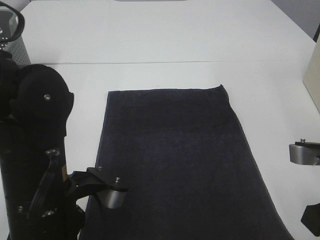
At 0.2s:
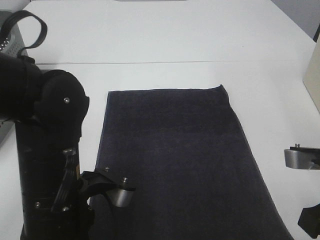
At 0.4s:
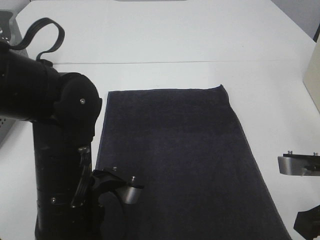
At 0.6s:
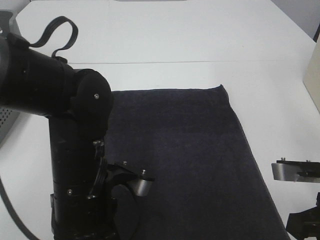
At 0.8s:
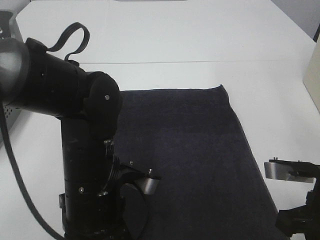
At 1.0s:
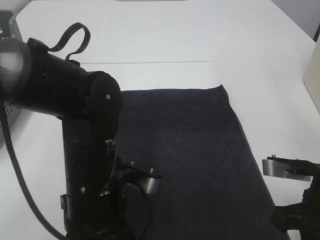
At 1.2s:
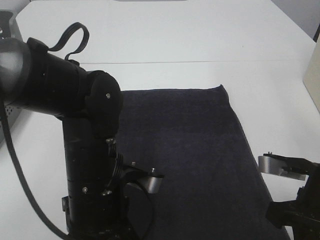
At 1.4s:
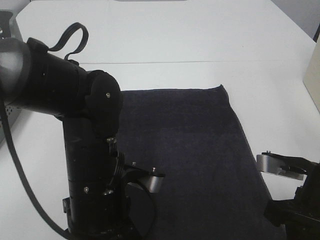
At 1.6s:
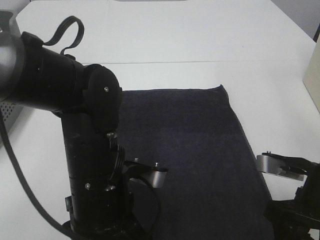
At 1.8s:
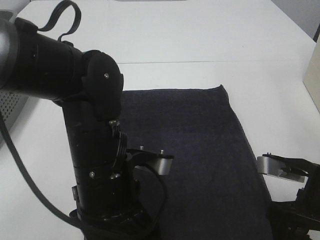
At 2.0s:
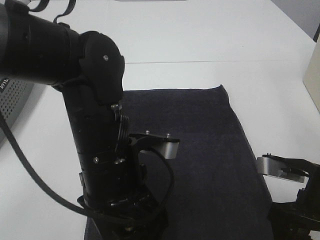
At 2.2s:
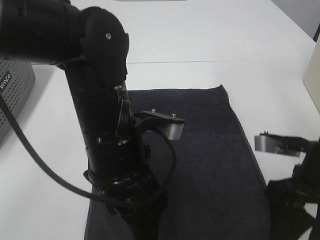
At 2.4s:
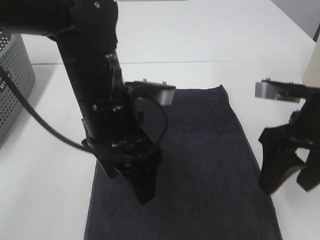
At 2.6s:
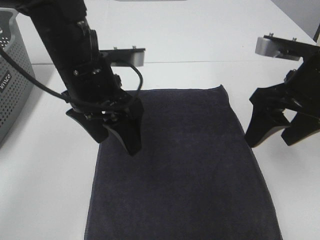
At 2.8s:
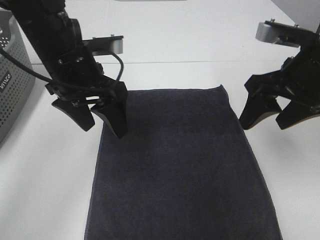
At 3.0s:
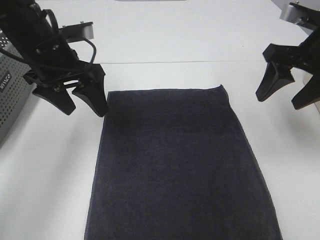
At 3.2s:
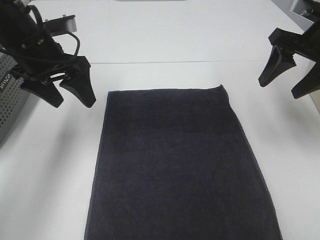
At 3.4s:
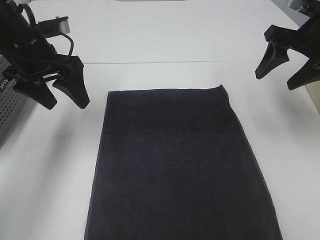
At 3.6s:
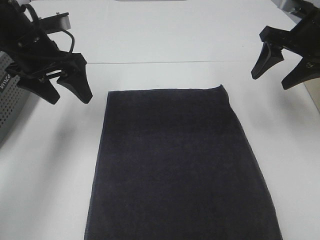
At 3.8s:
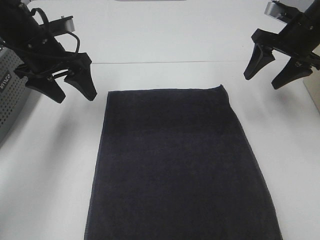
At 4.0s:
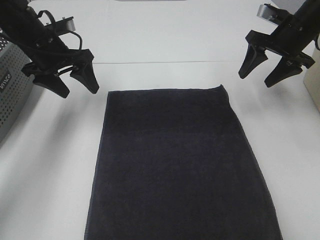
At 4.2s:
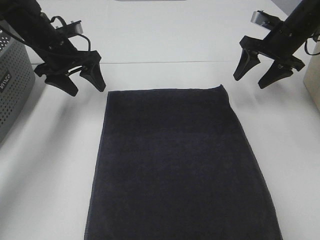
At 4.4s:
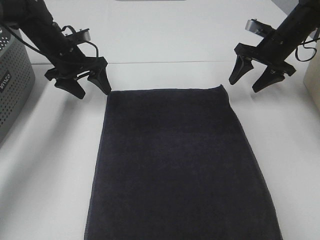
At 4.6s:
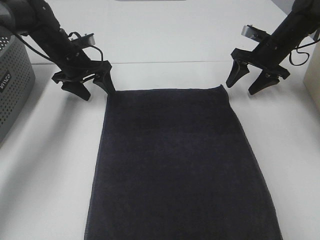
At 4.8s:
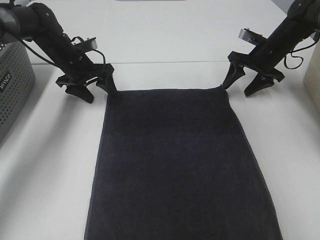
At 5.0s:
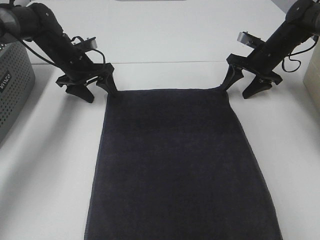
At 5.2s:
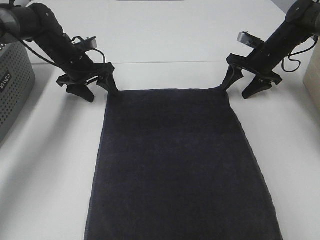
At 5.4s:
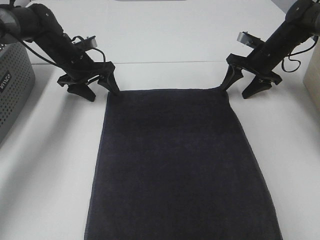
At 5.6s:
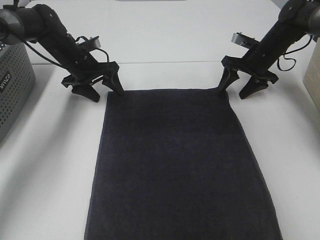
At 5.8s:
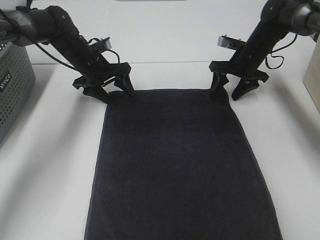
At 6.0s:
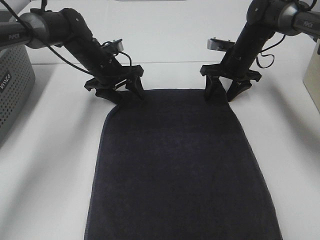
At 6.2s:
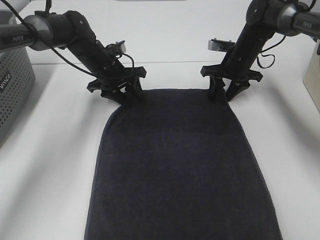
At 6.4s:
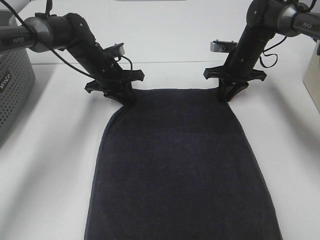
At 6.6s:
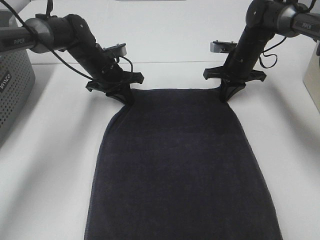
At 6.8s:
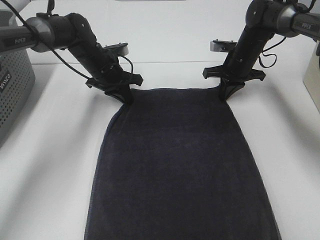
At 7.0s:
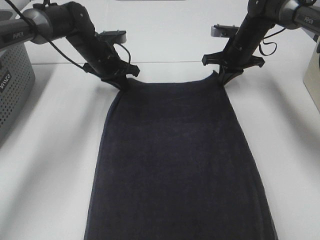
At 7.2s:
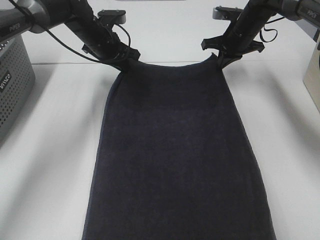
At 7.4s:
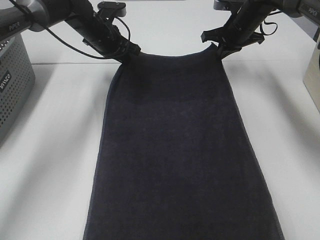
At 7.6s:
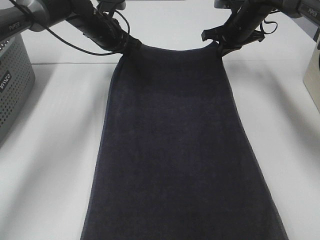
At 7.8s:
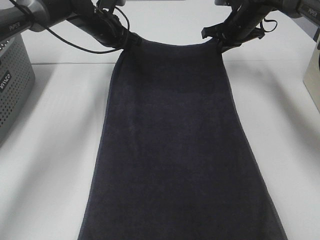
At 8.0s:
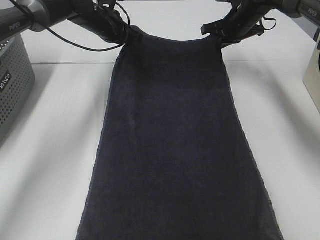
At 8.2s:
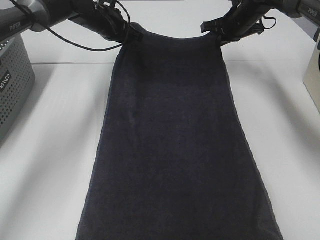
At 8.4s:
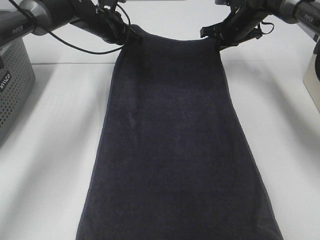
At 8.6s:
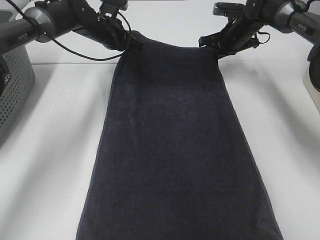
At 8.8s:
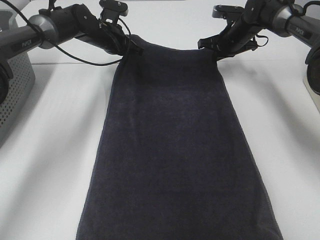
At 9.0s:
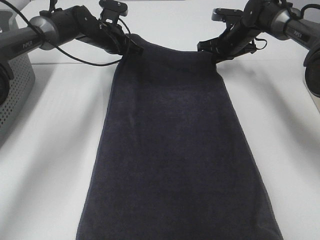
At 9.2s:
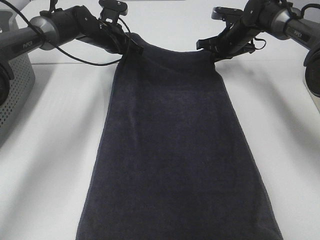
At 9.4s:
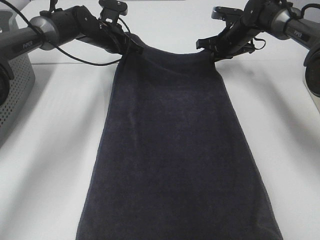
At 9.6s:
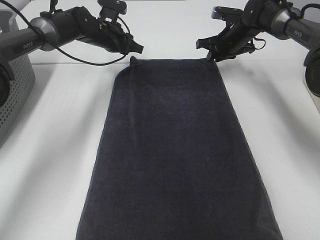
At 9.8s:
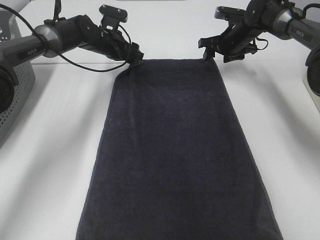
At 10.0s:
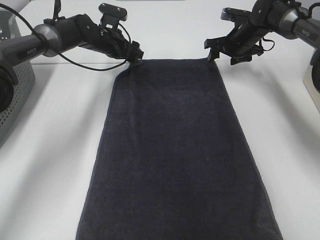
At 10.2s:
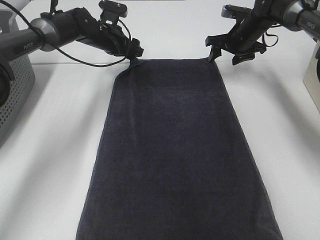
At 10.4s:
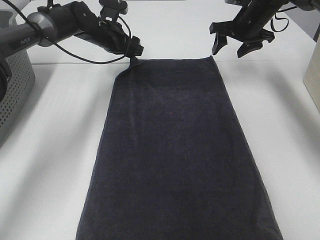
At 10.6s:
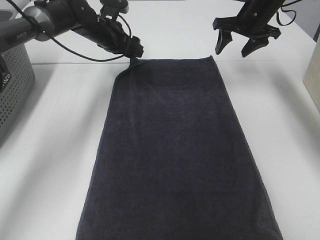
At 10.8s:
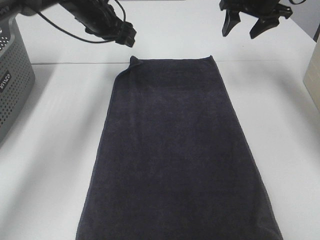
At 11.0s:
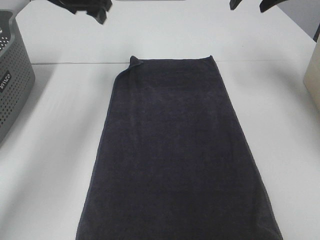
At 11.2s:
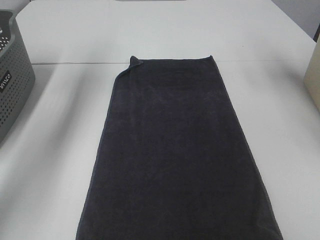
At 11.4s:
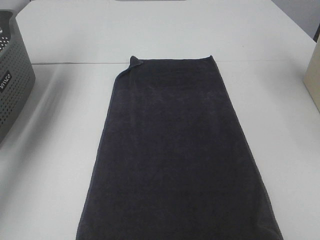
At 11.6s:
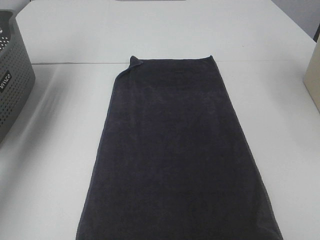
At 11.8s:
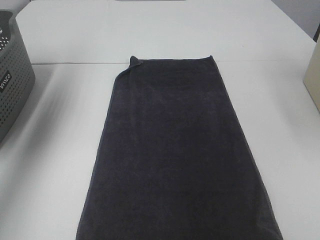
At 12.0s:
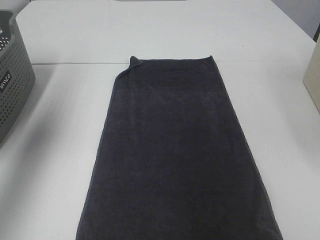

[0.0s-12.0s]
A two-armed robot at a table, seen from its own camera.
Task of the whole recording: Remove the towel and place it.
Step, 0.0s to 3.2s: Left hand:adjust the gray towel.
Step, 0.0s to 3.2s: Right hand:adjust the gray towel.
0.0s to 1.6s: The right gripper opens up, while the left gripper shifts by roughly 5 cm, and opens.
1.6s to 3.0s: The right gripper shifts roughly 20 cm forward and upward. The left gripper travels forward, to the left and upward by approximately 20 cm.
3.0s to 4.4s: The grippers both shift forward and downward by about 20 cm.
4.4s to 6.0s: The left gripper shifts approximately 5 cm to the right. Meanwhile the right gripper goes roughly 5 cm to the left.
6.0s to 7.6s: The left gripper heads upward and forward, covering roughly 10 cm, and closes its fingers; the right gripper shifts approximately 5 cm upward, and closes up.
7.6s to 9.0s: The right gripper changes place by roughly 5 cm.
9.0s to 10.4s: The right gripper goes approximately 5 cm upward, and opens its fingers; the left gripper opens its fingers.
10.4s to 12.0s: The left gripper travels upward, backward and to the left by some 40 cm. The right gripper is displaced backward and upward by some 35 cm.

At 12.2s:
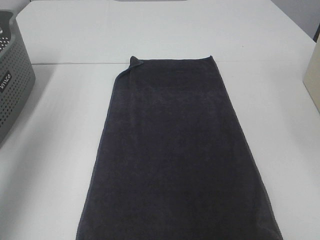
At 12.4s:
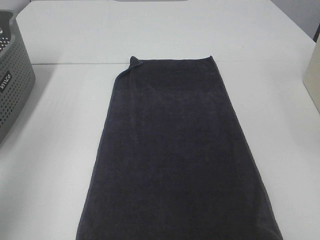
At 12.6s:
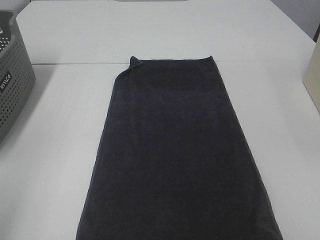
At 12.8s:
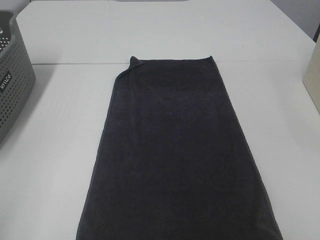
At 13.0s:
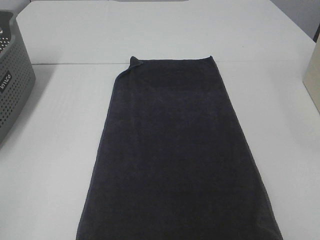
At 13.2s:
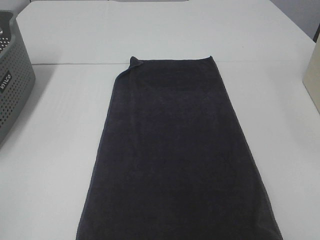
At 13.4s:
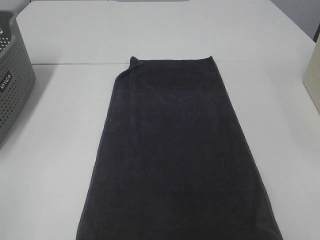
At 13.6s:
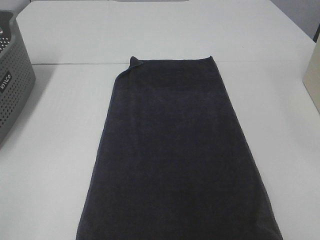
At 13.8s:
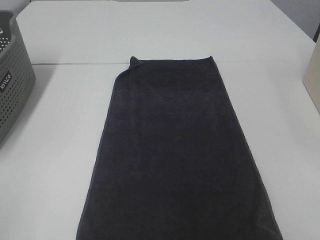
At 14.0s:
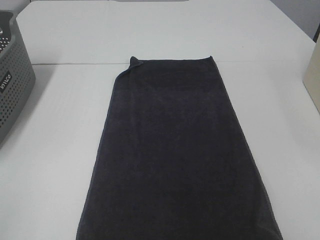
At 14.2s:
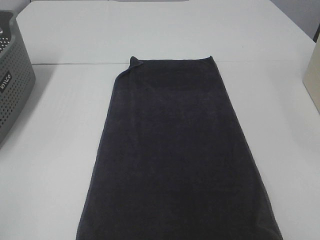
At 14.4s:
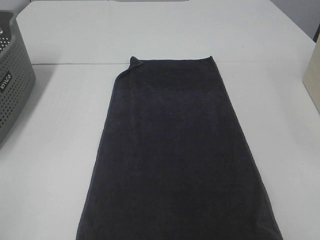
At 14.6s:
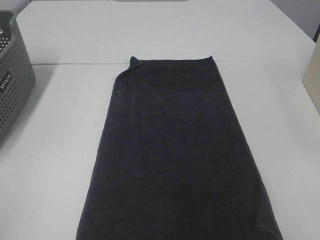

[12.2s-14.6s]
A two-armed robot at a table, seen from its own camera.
Task of the whole recording: Remove the towel and place it.
12.2s to 13.4s: The left gripper moves backward and downward, some 25 cm.
13.4s to 14.6s: Both grippers stay put.

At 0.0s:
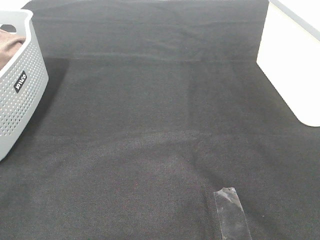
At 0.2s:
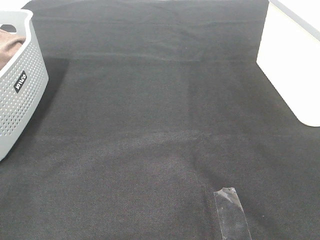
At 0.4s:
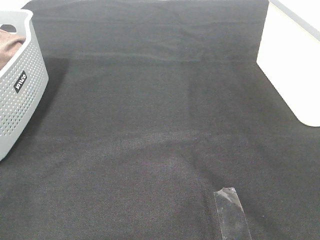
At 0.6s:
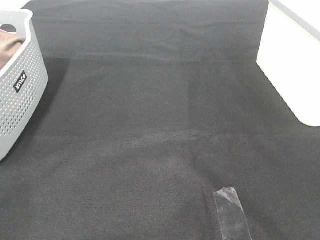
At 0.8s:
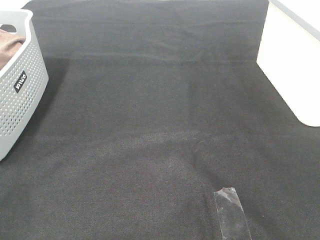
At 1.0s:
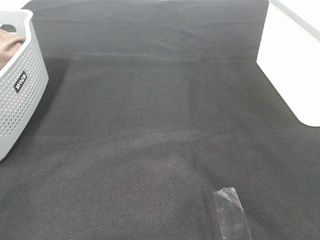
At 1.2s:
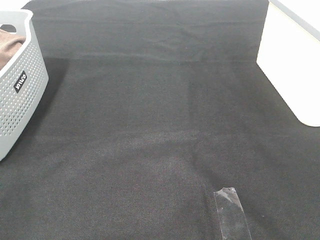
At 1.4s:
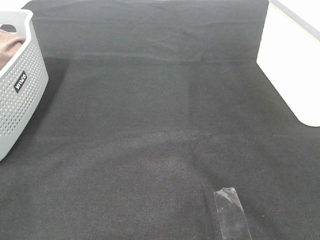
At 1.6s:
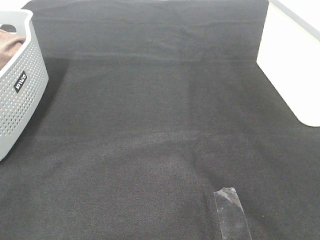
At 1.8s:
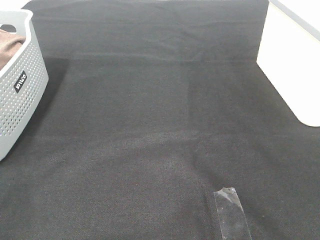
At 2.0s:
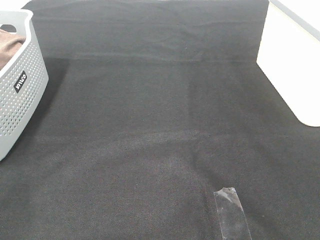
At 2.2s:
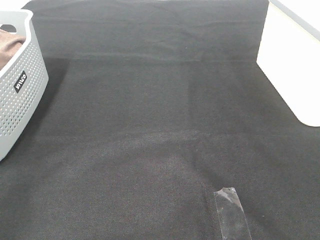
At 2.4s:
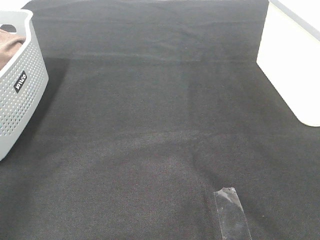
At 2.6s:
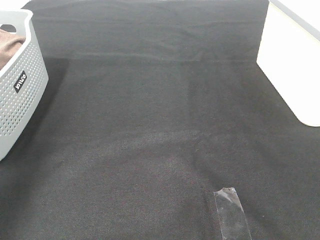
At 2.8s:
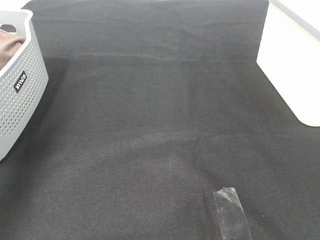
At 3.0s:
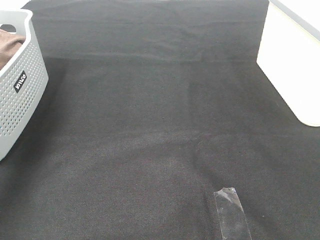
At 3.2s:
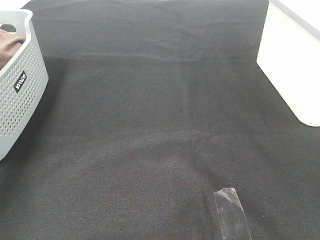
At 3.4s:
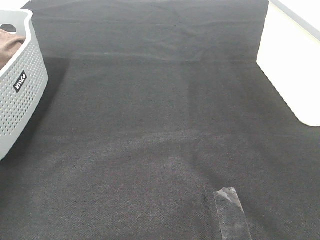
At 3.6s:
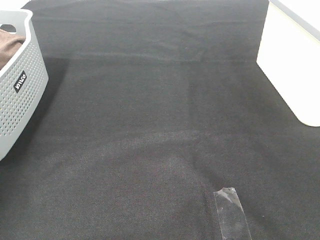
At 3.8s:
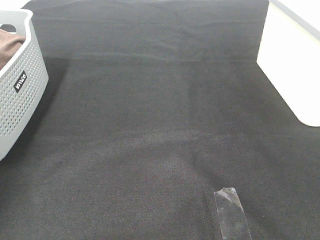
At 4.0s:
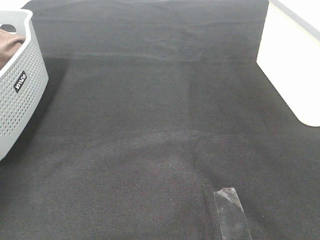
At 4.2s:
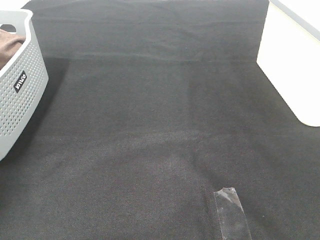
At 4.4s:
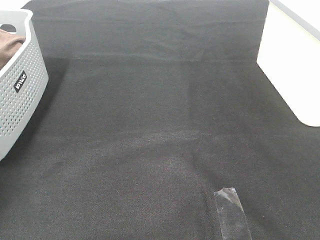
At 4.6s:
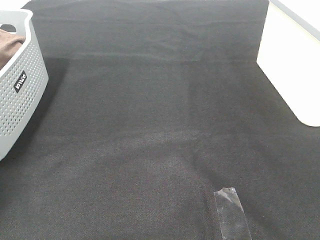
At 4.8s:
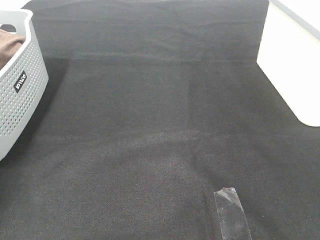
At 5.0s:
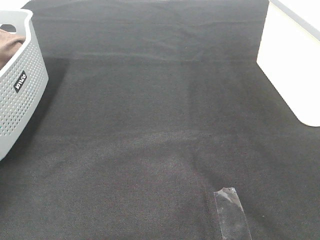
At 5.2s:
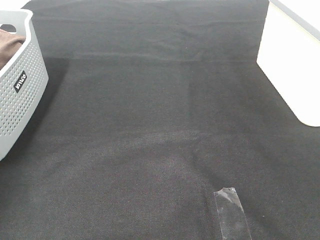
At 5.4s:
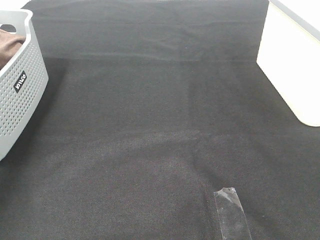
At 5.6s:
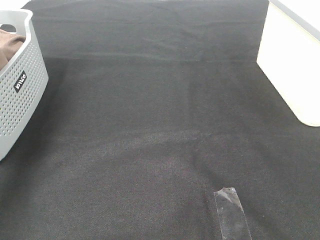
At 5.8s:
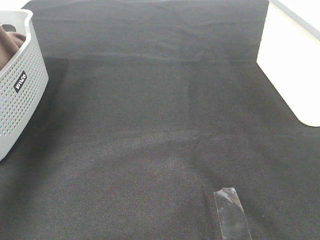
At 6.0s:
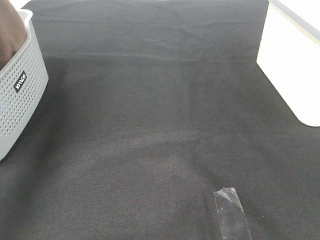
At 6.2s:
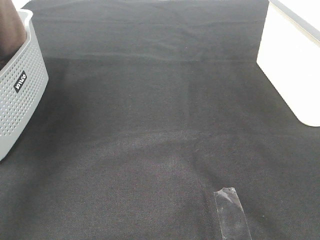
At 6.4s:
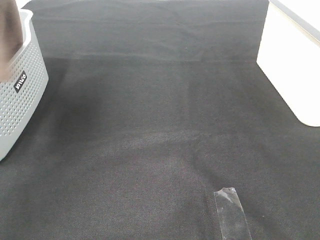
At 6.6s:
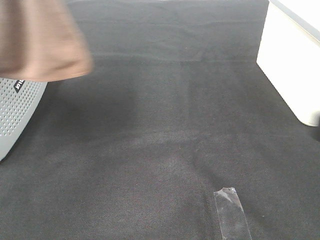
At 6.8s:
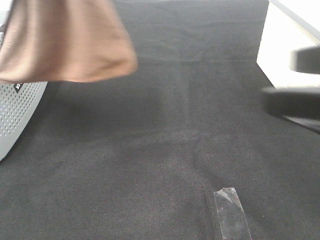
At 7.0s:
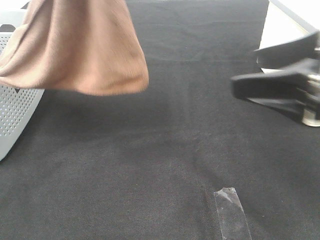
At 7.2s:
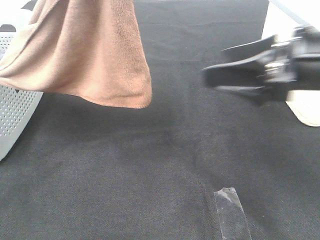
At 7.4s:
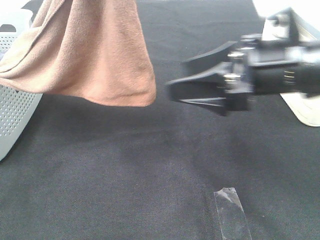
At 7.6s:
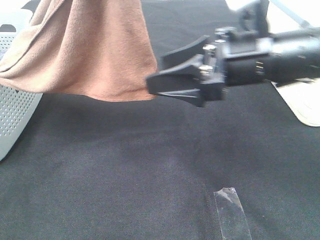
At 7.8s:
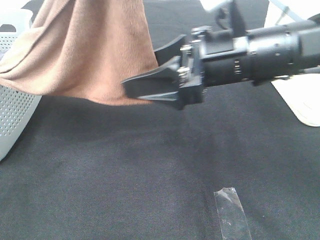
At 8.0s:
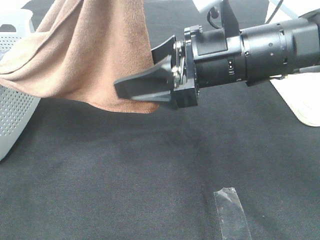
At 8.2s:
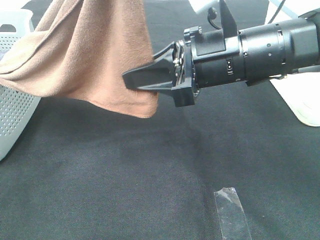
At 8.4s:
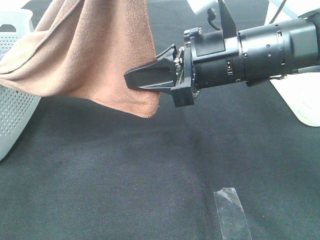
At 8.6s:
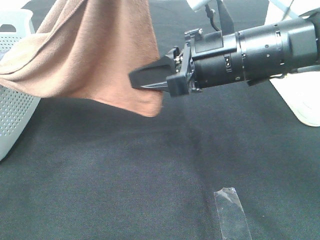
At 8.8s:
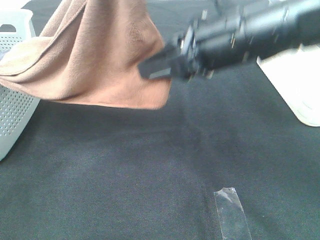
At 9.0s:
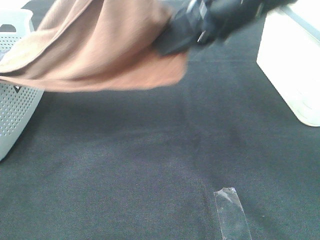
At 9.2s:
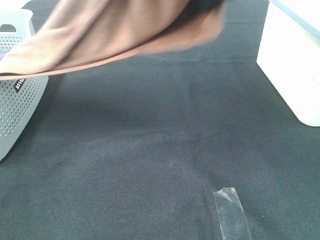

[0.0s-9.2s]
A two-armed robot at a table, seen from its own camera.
Task of the whole recording: Remove the towel and place it.
Step, 6.2s to 9.2s: Right hand: grab a corner of the brown towel and straighten it.
1.6s to 3.0s: The left gripper travels forward by about 40 cm.
3.0s to 4.6s: The left gripper shifts some 20 cm downward, to the left and forward, and closes up.
4.6s to 6.2s: The left gripper shifts approximately 35 cm upward, to the right and backward.
6.2s to 7.6s: The right gripper heads forward and to the left, covering approximately 30 cm. The left gripper is displaced to the right by about 15 cm.
7.6s to 9.2s: The right gripper heads upward, covering about 15 cm, and closes its fingers.
